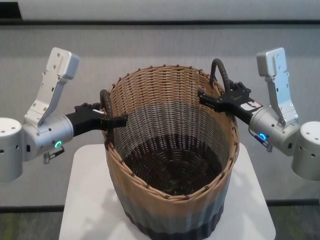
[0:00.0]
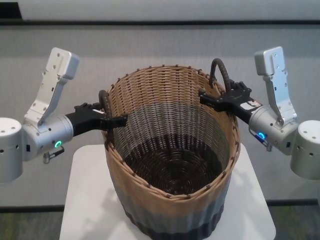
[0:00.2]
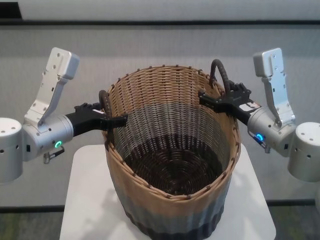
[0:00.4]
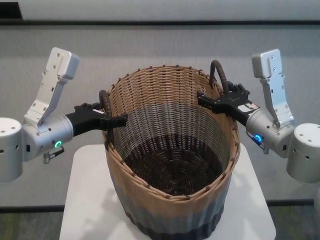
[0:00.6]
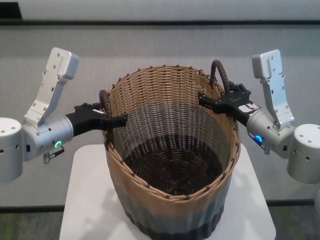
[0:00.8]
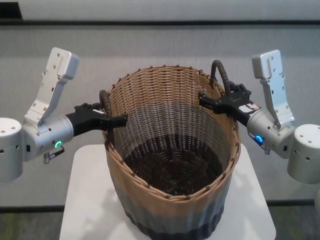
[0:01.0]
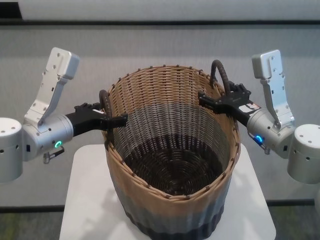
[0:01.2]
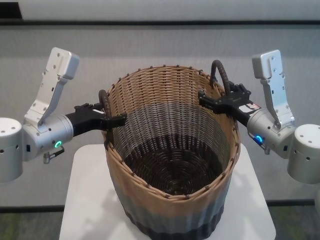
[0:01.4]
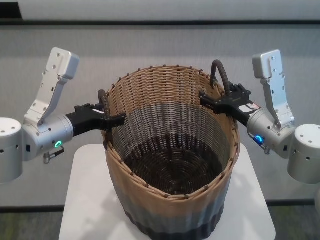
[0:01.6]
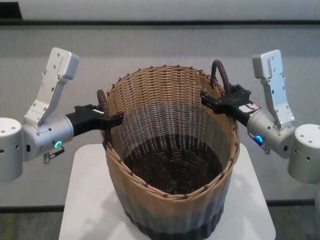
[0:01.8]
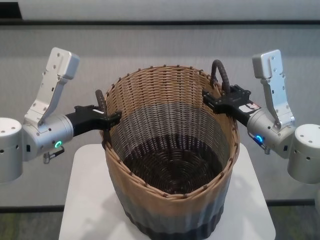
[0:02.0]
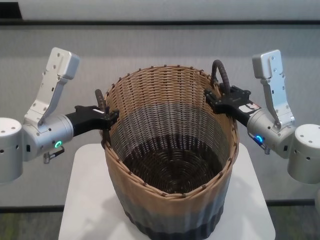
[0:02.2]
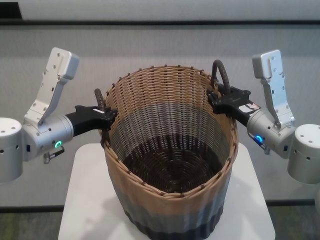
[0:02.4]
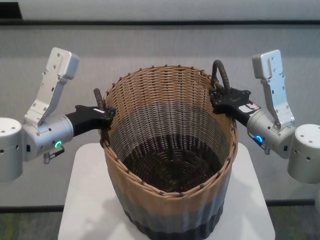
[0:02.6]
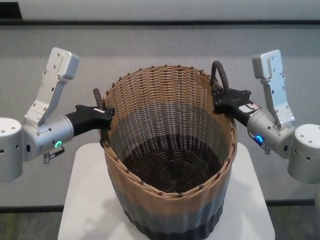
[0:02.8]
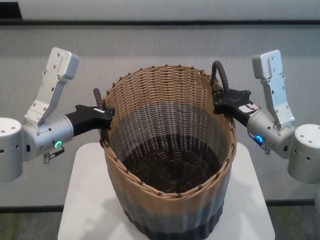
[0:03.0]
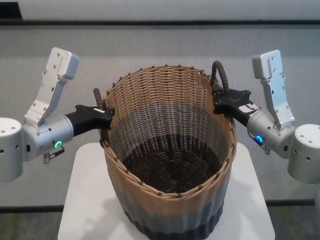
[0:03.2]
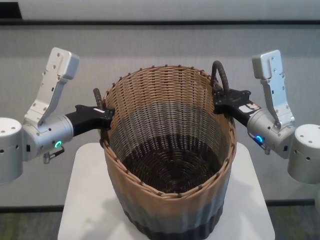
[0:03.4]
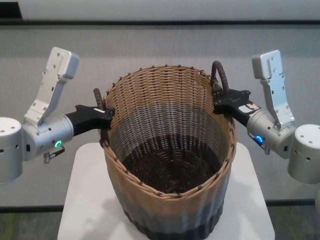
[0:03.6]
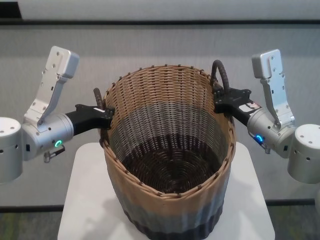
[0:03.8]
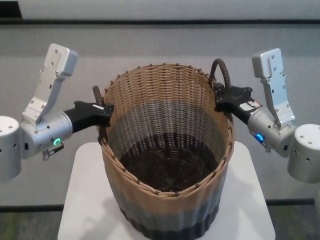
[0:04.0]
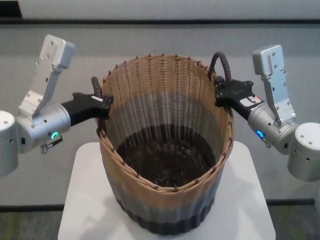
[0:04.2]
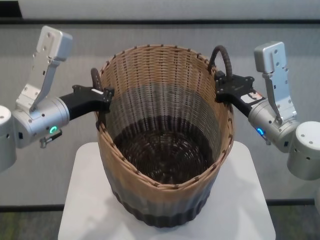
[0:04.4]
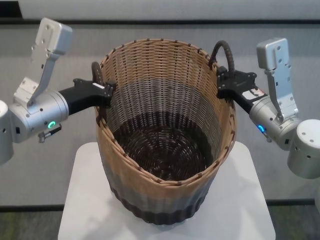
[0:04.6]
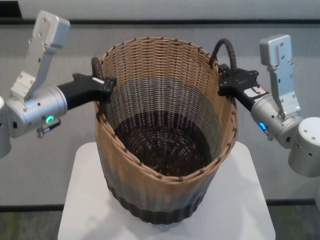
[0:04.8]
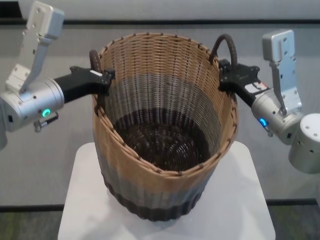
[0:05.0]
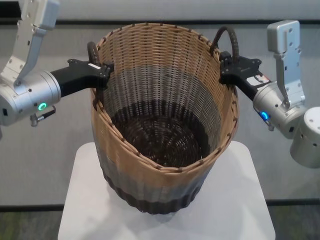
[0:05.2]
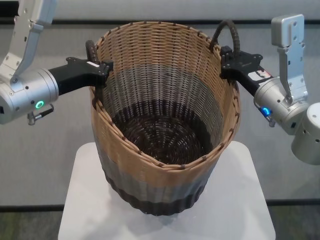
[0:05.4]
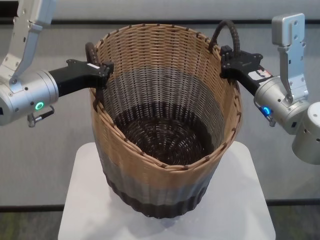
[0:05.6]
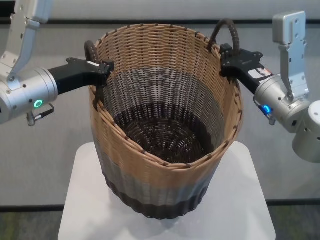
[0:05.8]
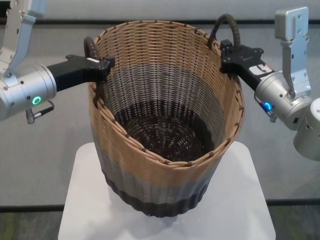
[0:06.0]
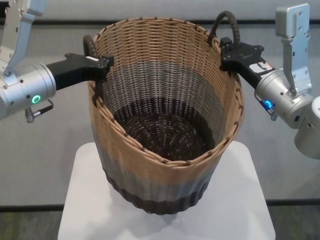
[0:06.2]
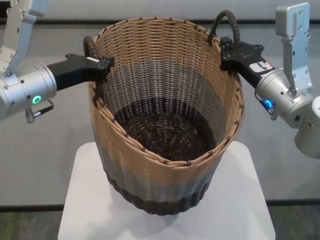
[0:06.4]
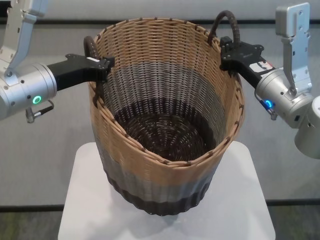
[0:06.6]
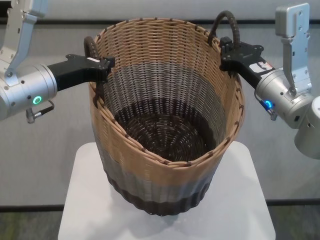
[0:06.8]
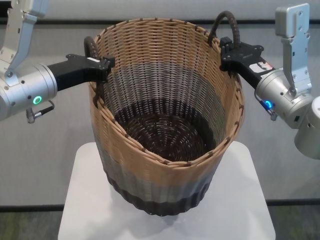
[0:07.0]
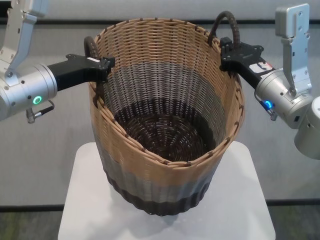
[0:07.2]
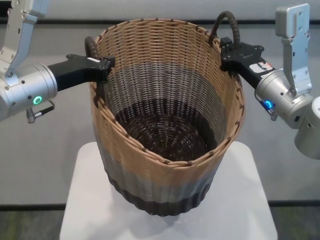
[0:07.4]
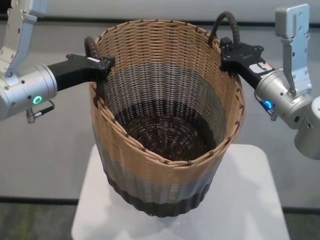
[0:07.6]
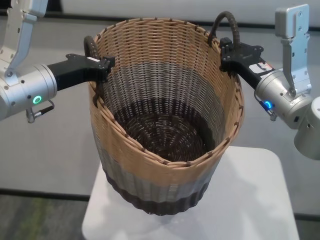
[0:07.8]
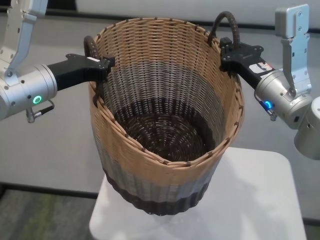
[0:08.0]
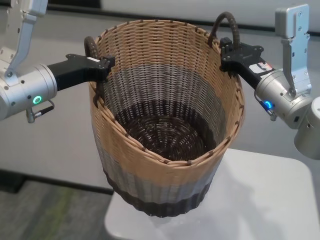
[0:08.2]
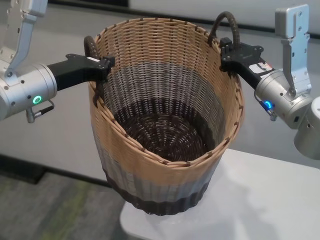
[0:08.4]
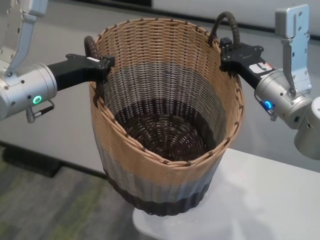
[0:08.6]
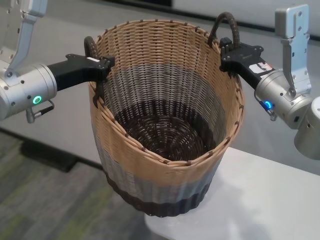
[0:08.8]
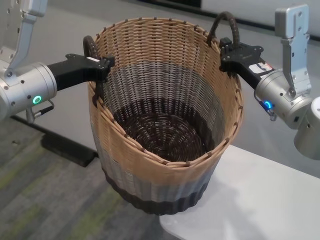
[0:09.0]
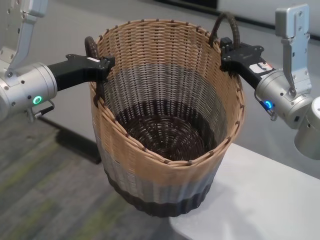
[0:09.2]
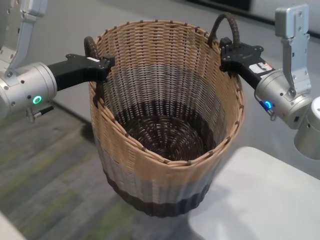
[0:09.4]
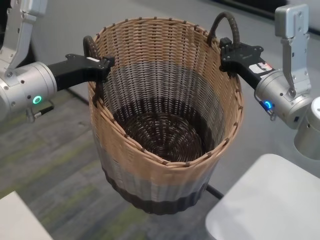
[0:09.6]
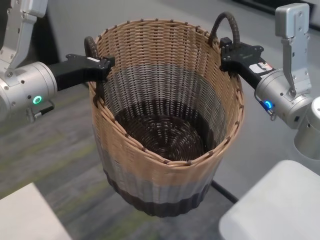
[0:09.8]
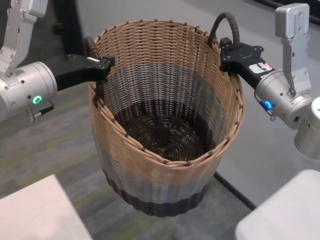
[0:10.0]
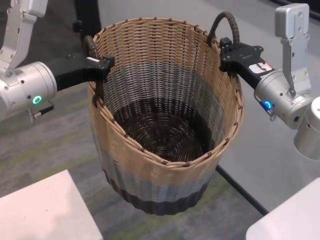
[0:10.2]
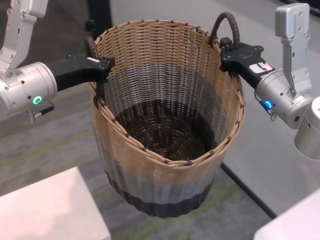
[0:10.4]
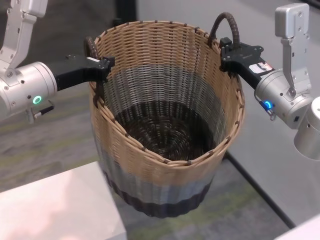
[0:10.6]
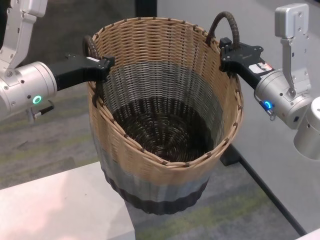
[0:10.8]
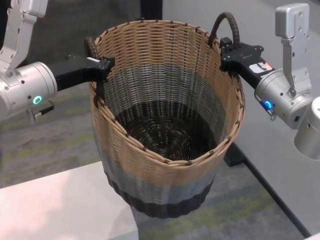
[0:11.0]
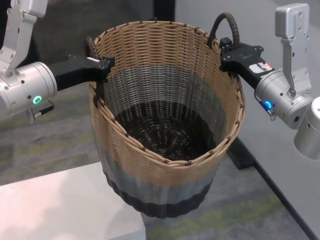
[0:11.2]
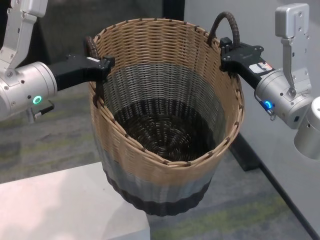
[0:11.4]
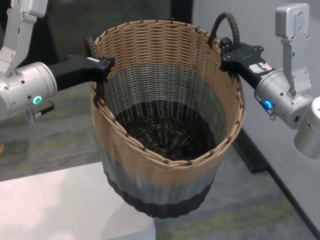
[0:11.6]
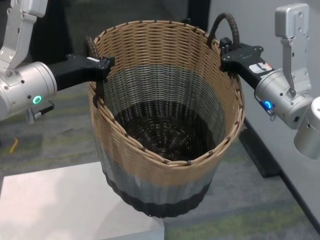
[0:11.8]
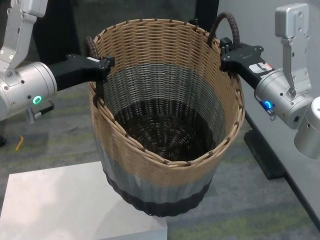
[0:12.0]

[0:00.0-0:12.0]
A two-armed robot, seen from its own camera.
Task of the whole recording: carry the clothes basket in coordination with both hands.
Step, 0:00.0 to 0:03.4: Grasp the basket with both grippers.

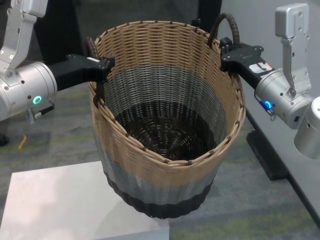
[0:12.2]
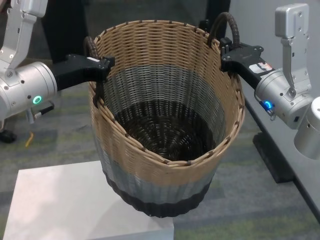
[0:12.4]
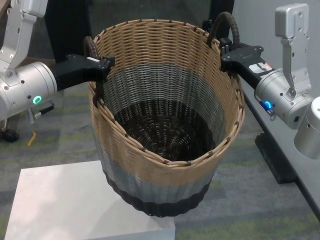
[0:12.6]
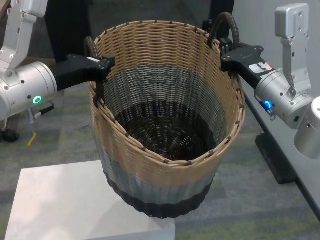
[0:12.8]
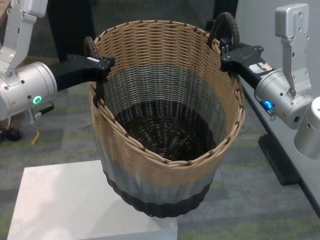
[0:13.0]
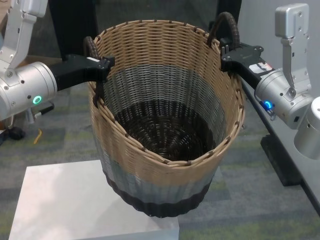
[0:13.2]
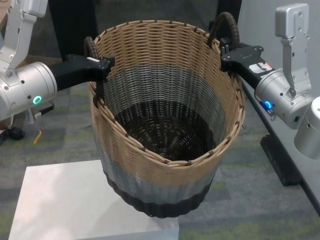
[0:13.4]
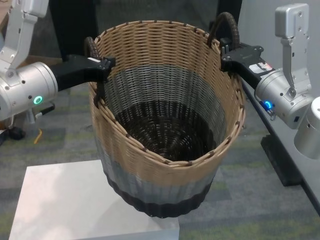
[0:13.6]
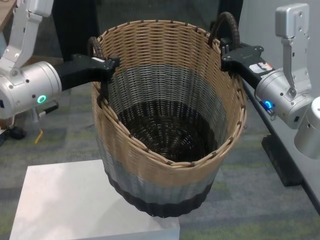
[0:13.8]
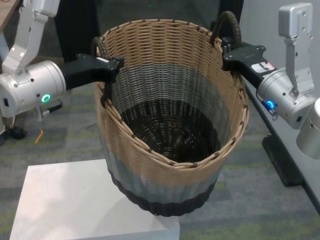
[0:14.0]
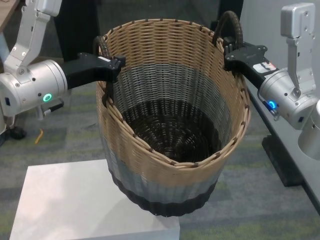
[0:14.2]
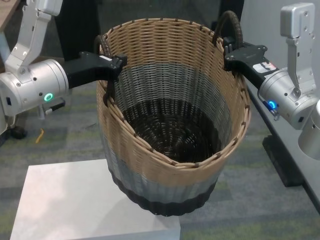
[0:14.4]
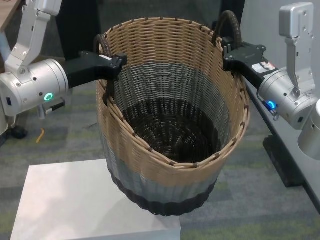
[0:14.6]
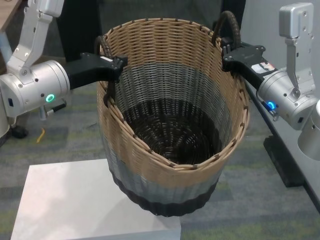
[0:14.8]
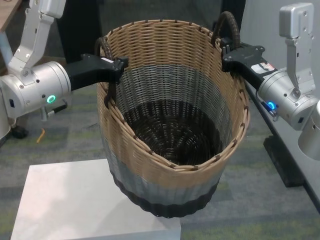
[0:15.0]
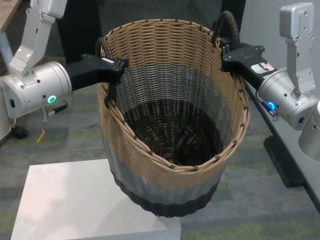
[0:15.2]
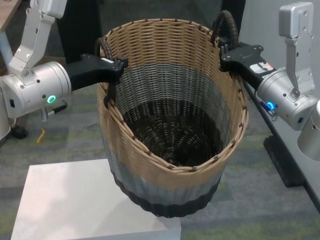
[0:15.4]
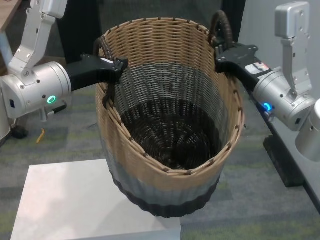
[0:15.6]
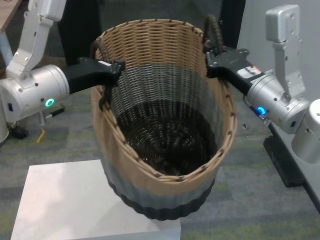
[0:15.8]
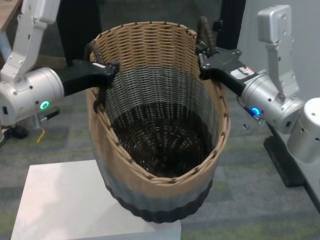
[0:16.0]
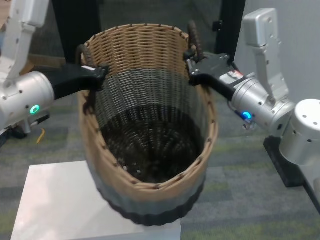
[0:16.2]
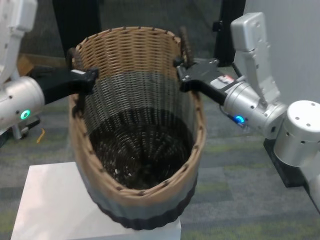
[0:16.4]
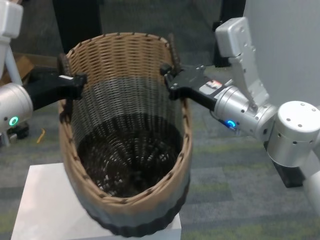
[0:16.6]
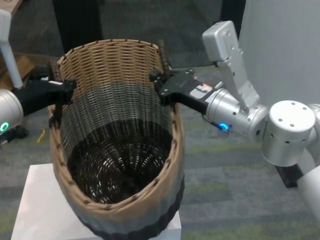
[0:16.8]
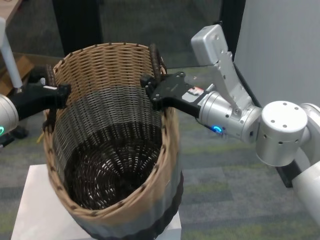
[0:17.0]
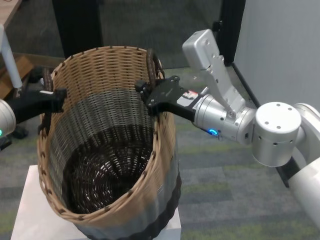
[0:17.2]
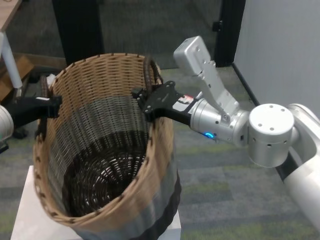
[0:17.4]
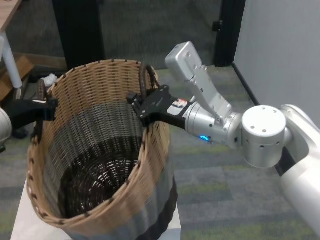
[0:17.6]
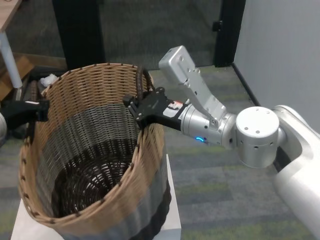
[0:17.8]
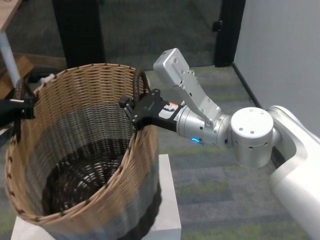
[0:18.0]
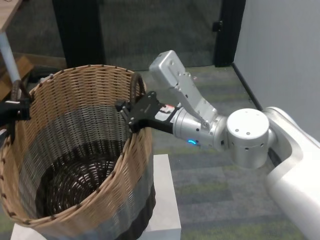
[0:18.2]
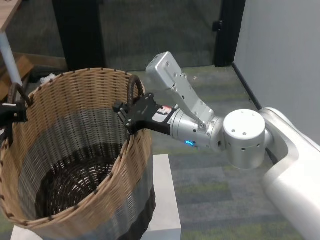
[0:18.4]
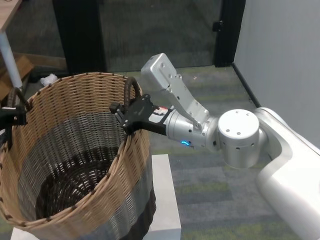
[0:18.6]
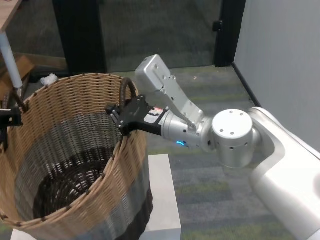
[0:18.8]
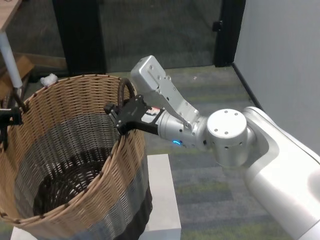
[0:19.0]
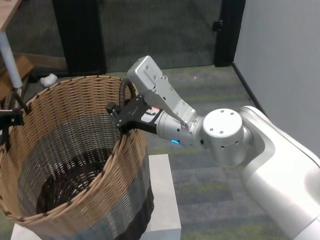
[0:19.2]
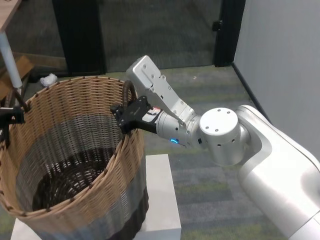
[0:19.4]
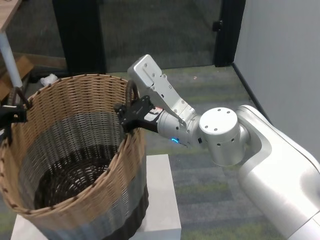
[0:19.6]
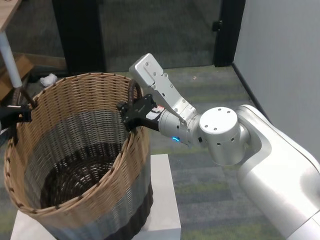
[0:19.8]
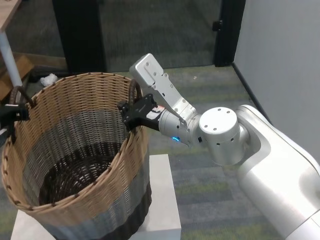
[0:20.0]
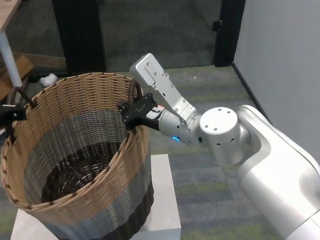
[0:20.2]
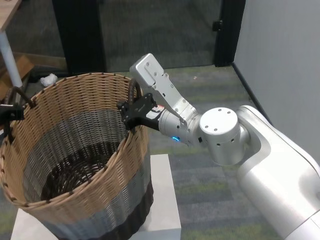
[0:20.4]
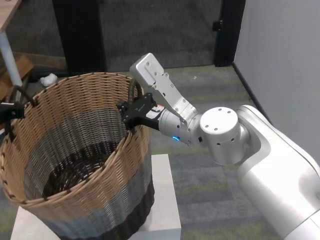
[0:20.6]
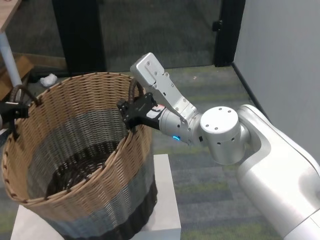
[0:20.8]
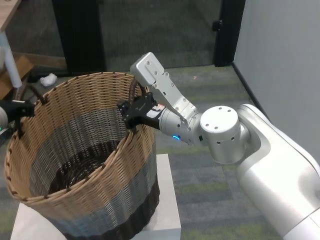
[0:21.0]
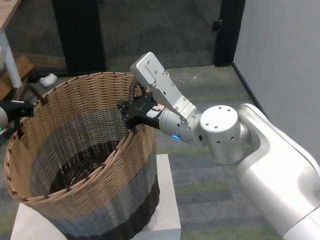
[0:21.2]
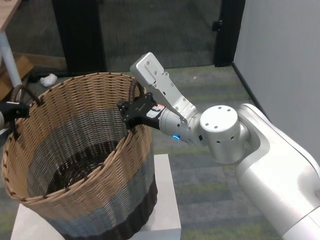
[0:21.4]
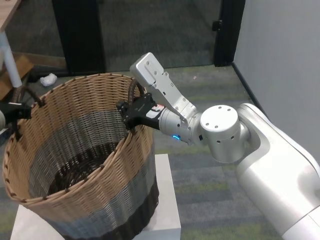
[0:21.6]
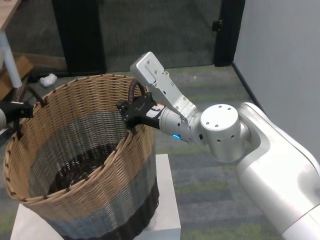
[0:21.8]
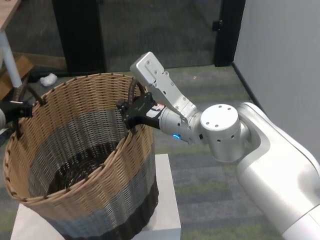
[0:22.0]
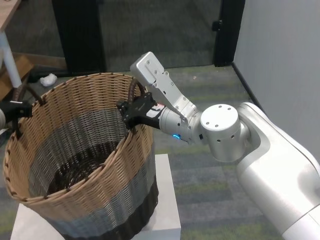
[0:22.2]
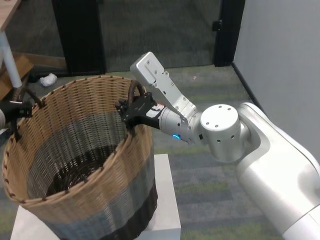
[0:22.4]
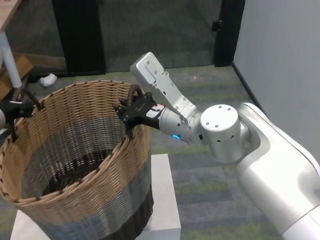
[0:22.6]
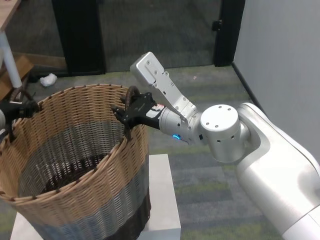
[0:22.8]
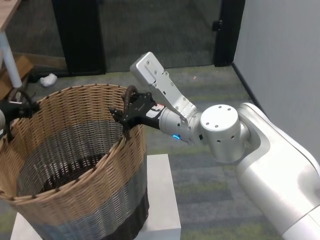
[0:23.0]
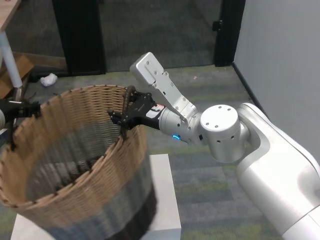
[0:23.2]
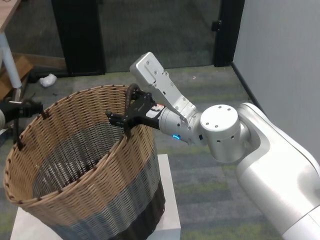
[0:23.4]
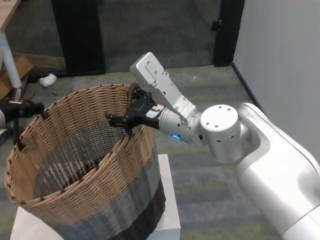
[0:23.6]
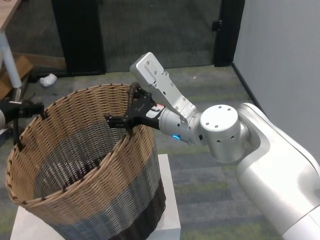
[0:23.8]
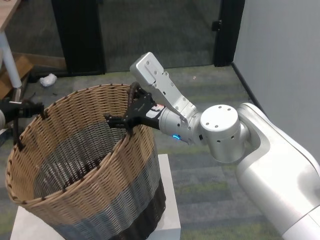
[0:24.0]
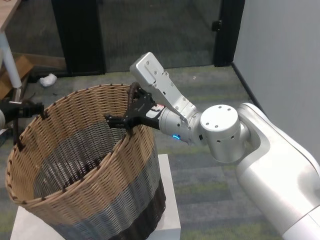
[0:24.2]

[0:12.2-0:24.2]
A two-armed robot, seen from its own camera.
Task of the whole recording: carry the clothes basket in coordination with both hands.
Step, 0:12.2 to 0:16.6: Move the basket above the other table.
